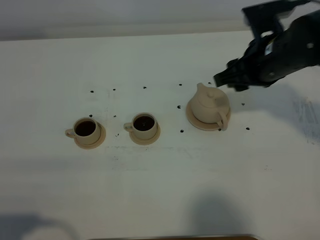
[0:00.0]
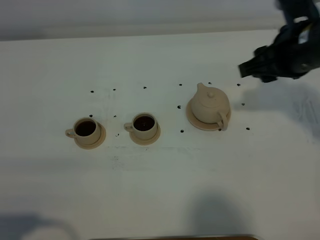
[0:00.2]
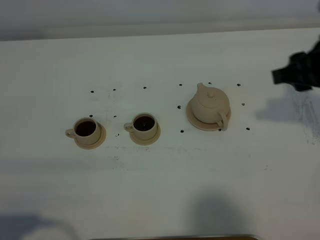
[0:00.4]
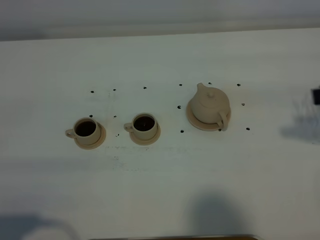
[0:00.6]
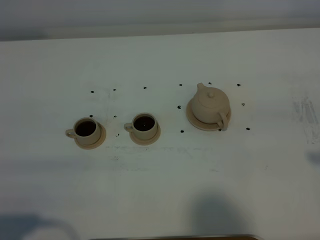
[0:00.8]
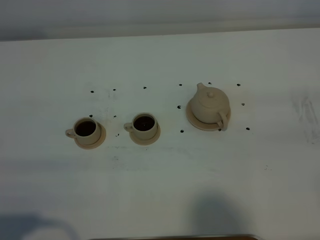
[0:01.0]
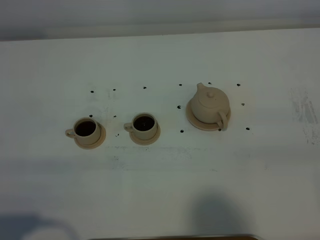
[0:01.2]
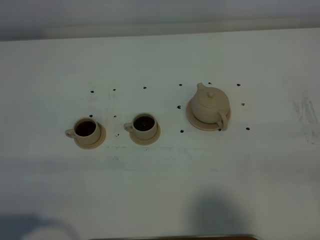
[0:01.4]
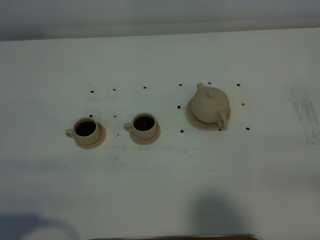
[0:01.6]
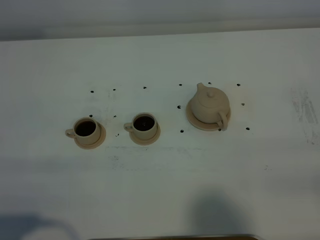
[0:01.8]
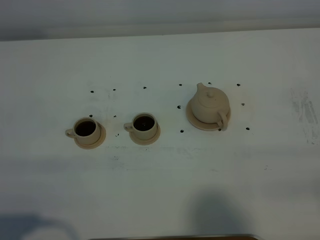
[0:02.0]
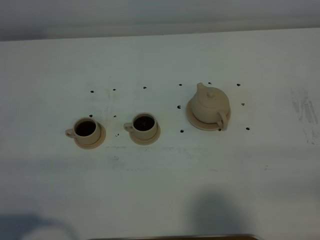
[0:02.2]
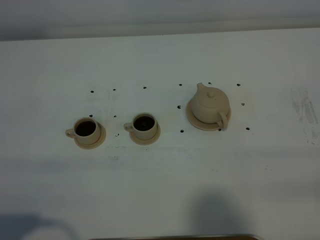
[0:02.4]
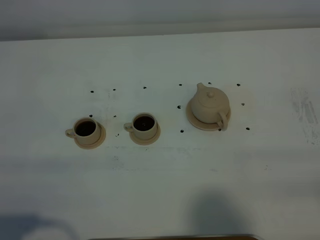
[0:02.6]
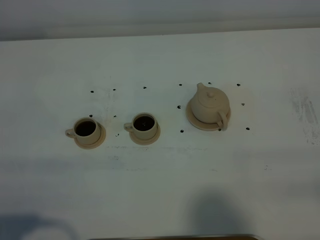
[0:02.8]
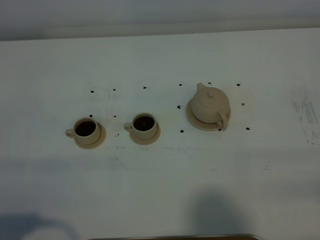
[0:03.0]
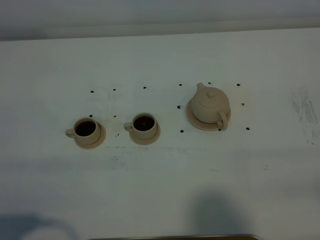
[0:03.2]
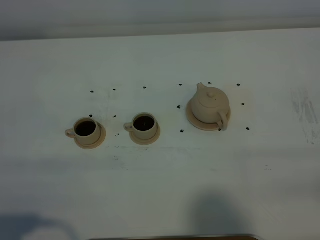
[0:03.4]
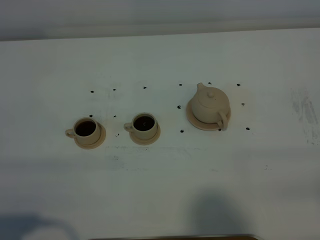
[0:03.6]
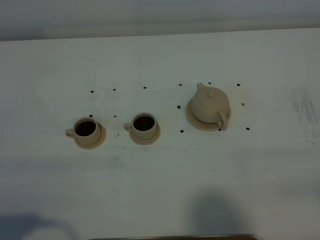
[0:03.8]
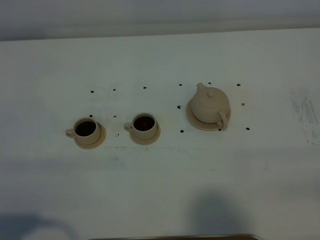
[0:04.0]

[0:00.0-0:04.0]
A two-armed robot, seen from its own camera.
Task of the whole recording: grasp the brown teapot and pour the tea into the two brown teacups one by one, put the brown teapot back in its original place.
0:00.0 to 0:01.4: The right gripper goes roughly 30 cm backward and to the right.
0:02.6 to 0:04.0: Neither gripper changes place.

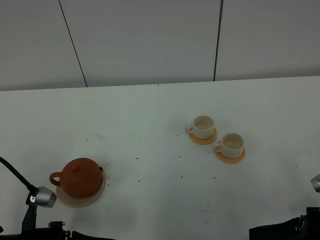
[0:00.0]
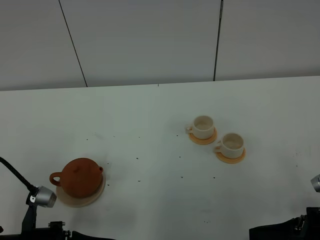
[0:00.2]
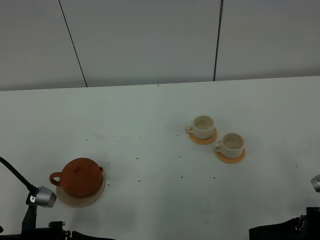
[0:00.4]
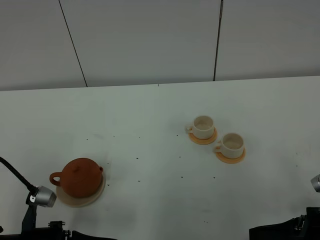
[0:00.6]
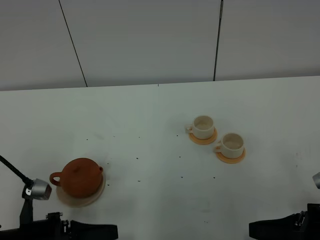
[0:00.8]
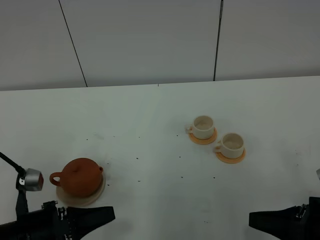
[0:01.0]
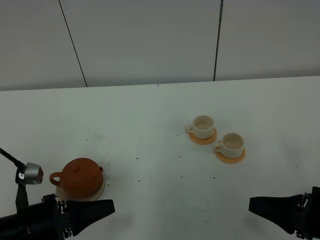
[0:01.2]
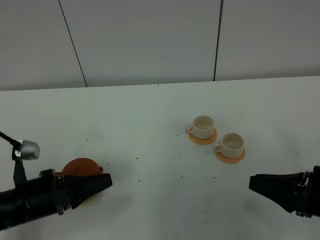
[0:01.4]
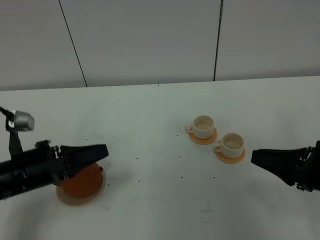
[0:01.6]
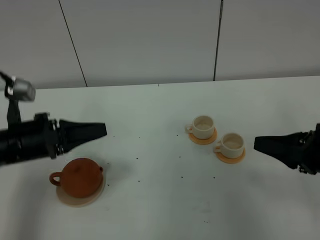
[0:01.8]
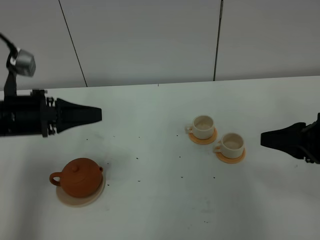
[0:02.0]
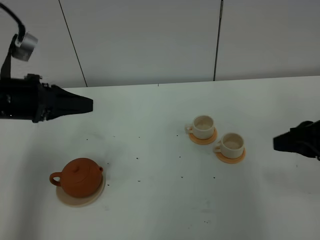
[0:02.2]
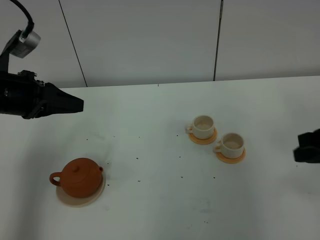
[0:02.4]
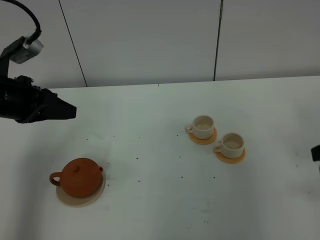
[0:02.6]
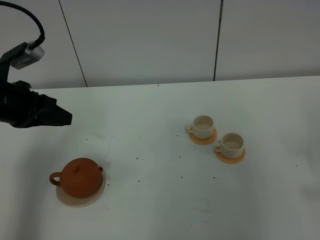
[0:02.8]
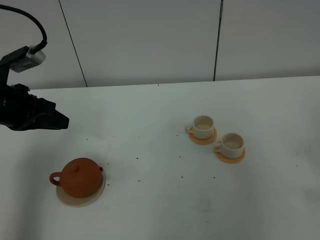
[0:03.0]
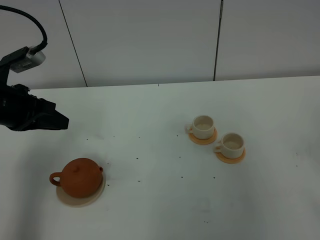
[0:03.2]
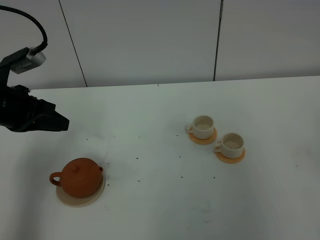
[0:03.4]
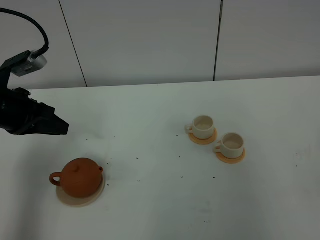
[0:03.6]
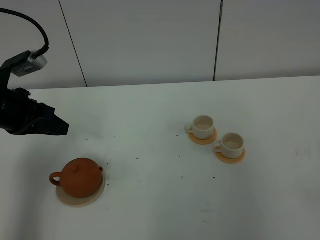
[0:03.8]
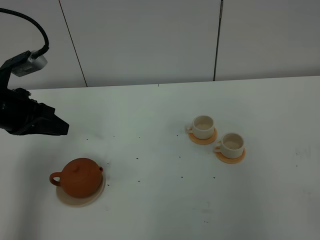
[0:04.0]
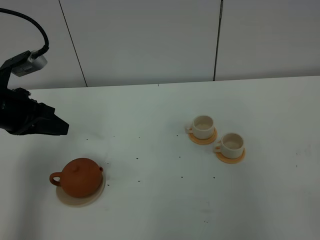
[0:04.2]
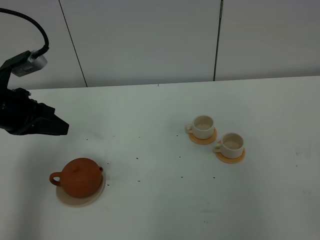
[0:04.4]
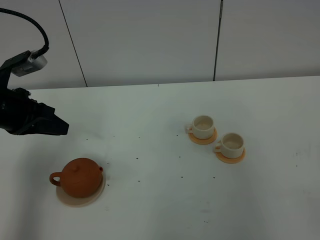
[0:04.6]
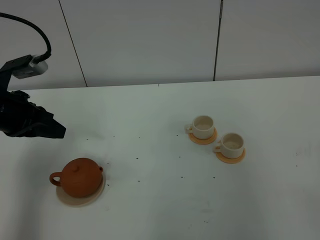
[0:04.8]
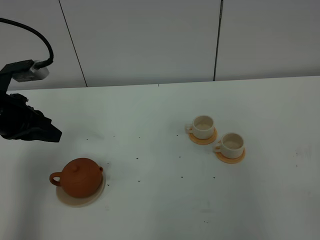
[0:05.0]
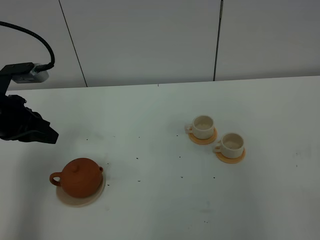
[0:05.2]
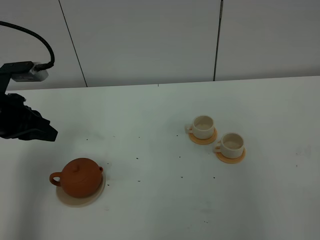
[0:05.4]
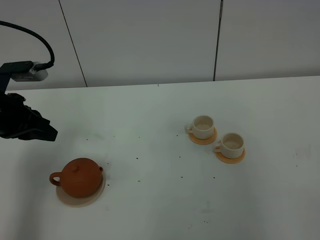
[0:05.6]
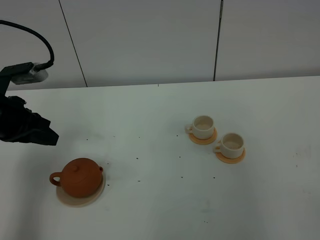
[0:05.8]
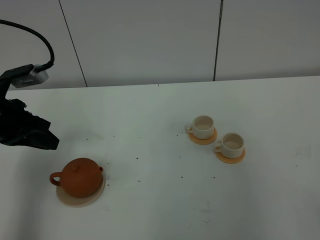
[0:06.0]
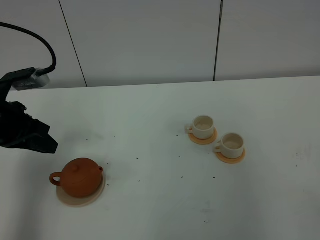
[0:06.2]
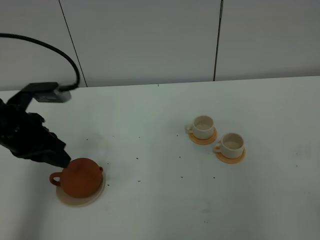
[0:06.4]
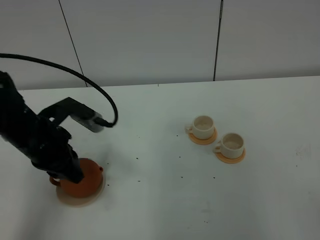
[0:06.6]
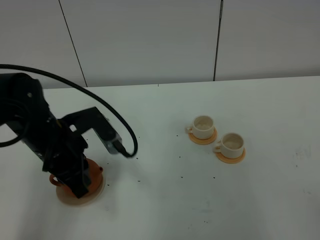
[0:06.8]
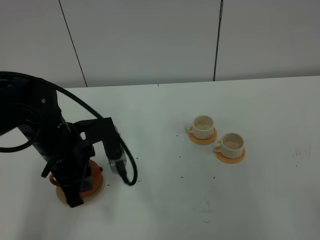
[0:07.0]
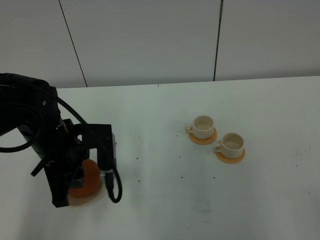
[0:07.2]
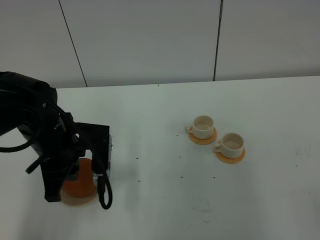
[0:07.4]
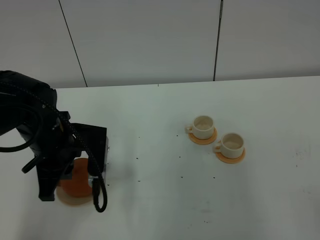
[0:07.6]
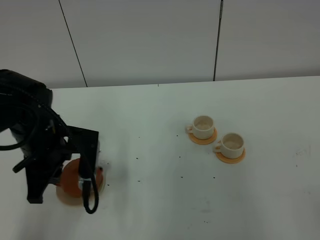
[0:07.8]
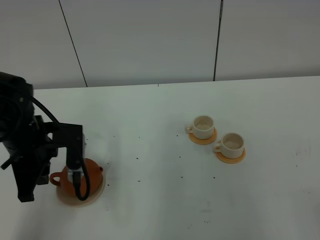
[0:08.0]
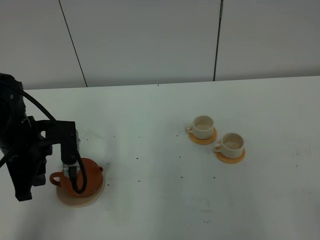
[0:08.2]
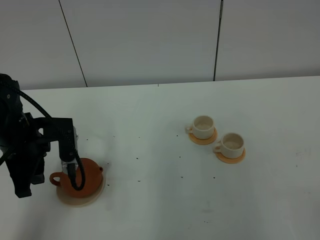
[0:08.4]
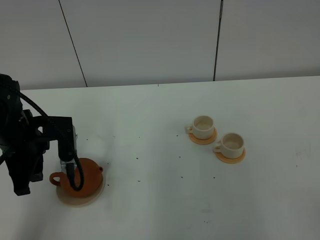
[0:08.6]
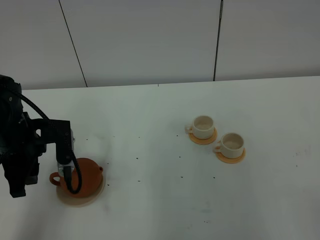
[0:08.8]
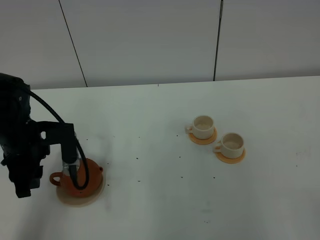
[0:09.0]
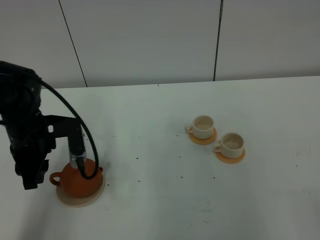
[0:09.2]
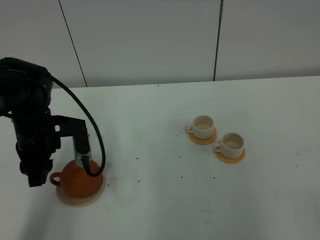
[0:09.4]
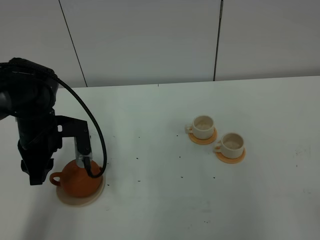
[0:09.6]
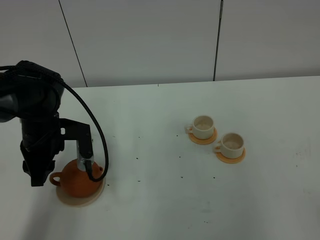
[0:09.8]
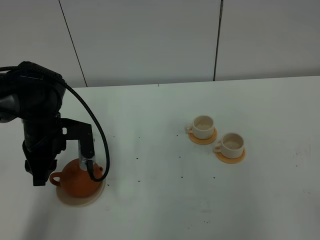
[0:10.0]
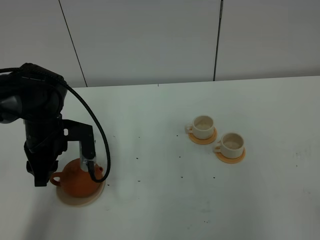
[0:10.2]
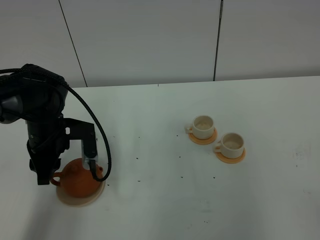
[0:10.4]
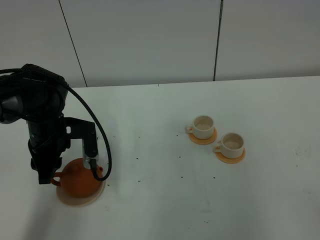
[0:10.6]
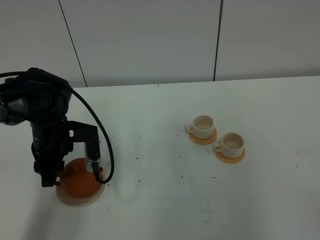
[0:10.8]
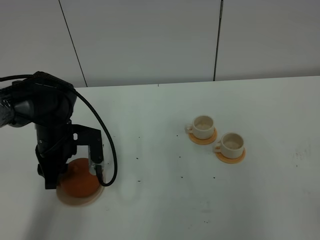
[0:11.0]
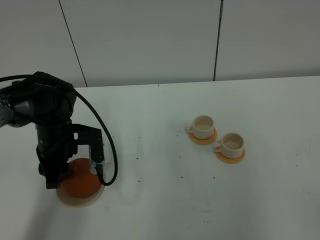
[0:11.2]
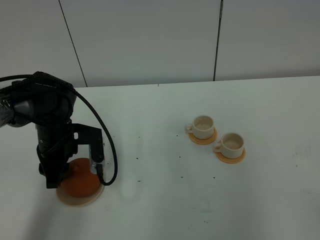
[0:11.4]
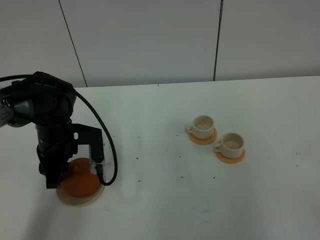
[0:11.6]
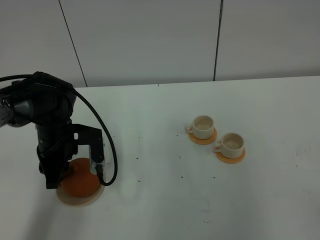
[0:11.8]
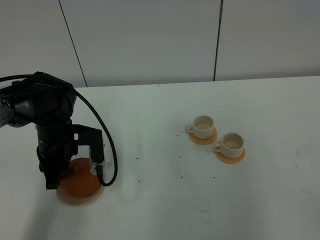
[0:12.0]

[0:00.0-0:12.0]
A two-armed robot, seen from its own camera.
Task of the whole recording: grasp the brown teapot and pour the tea into the two white teacups one by one, put the brown teapot back in its original place.
0:00.0 to 0:01.6: Both grippers travel together forward and upward, some 10 cm.
0:01.6 to 0:03.0: The left gripper heads forward, upward and to the left, covering some 15 cm; the right gripper goes about 10 cm upward and to the right.
0:04.4 to 0:06.0: The grippers stay close to where they were, moving slightly.
0:06.0 to 0:07.6: The left gripper is displaced to the right by approximately 10 cm.
0:07.6 to 0:09.0: The left gripper is displaced to the left by some 5 cm, and opens its fingers.
0:09.0 to 0:10.4: The left gripper ends up some 5 cm from where it was.
0:10.4 to 0:12.0: The left gripper closes its fingers.

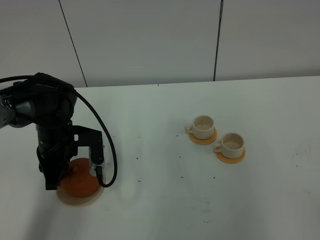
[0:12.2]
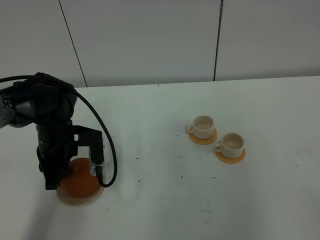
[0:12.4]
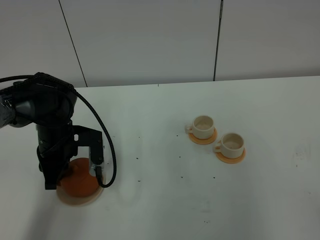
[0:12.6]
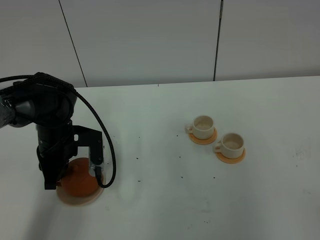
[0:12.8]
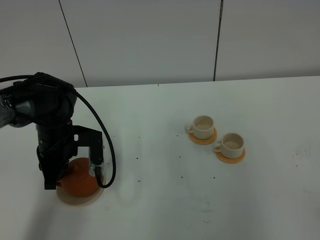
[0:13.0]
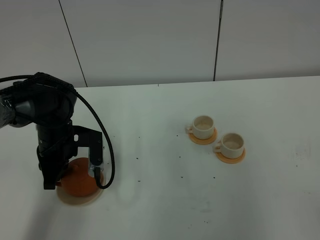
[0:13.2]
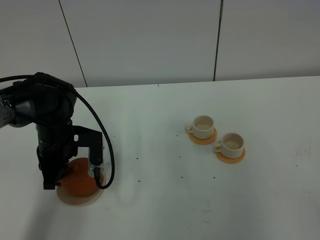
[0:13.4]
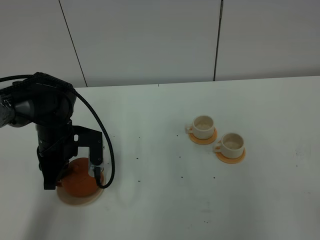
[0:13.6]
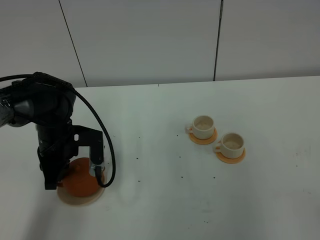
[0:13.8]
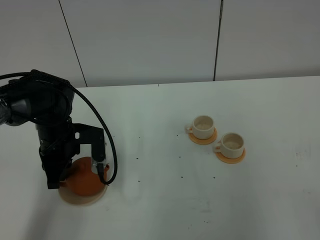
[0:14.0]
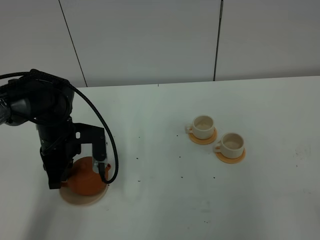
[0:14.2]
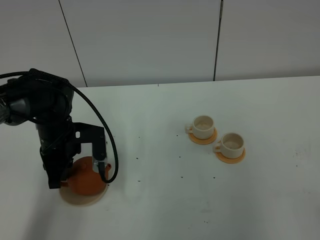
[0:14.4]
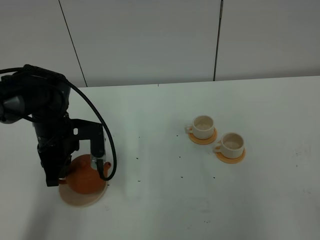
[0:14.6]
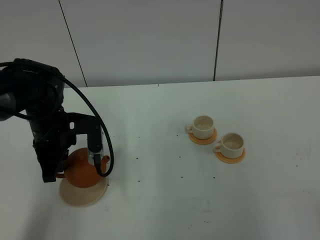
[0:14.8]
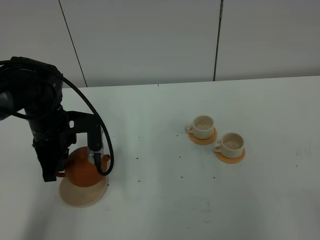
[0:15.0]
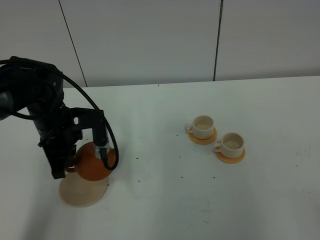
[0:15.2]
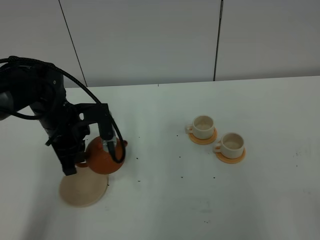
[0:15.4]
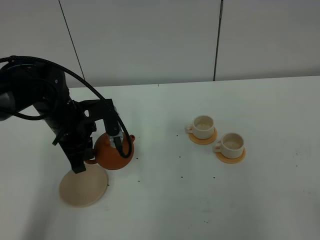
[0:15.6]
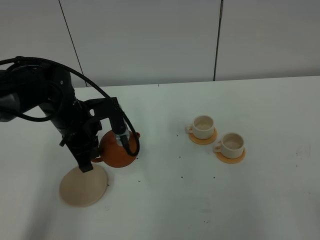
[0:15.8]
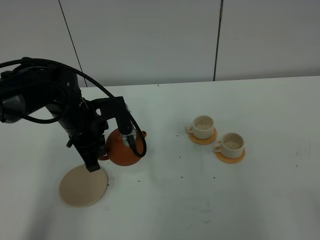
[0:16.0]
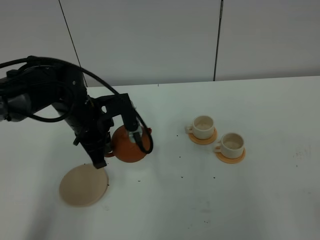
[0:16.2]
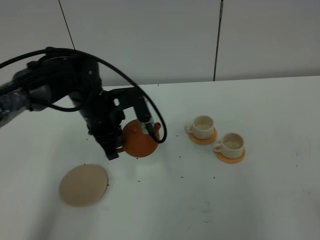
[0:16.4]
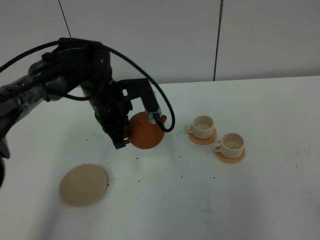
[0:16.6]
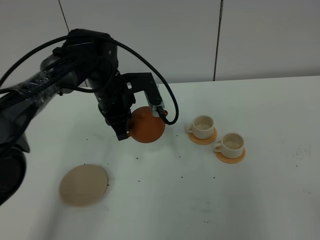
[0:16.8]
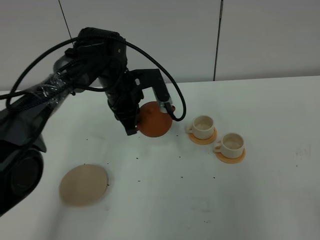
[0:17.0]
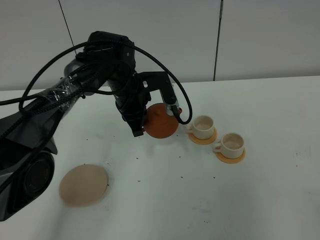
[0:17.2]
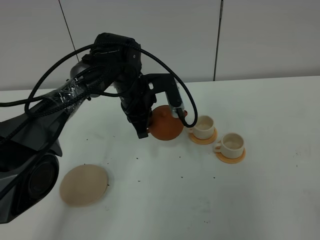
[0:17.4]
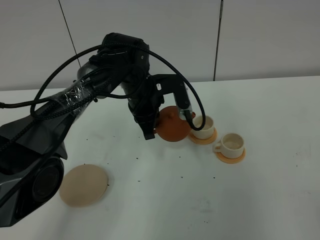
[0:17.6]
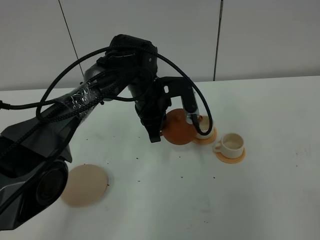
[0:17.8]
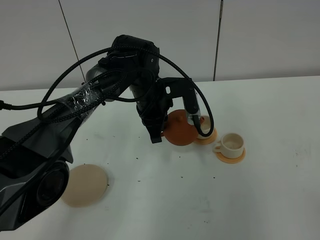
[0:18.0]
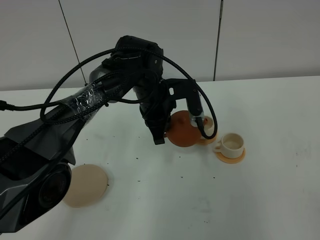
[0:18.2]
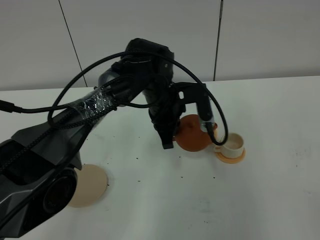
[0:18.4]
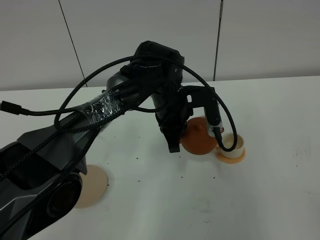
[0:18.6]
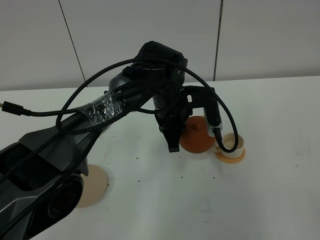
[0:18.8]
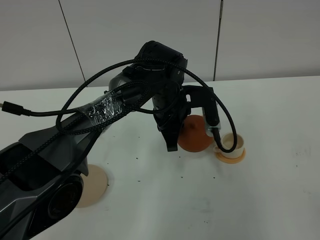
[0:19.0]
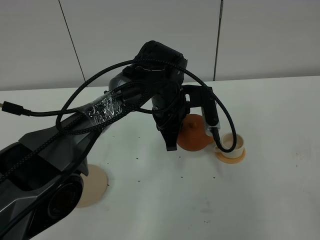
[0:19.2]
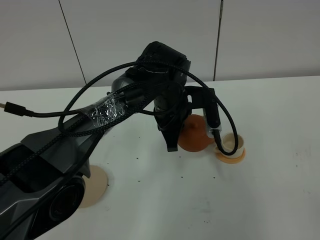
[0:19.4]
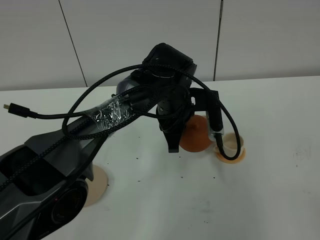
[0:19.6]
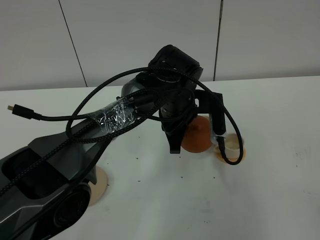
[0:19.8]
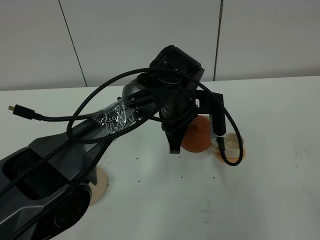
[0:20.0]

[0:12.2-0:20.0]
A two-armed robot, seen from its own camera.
Task of the whole recording: grasp the brown teapot and pour the tea into the two white teacups one by one, put the brown teapot back in its original place.
Step, 0:12.2 to 0:15.4: Pick up the teapot with the left gripper.
0:12.2 to 0:13.8: Neither gripper changes place.
0:13.8 to 0:15.4: The grippers stay close to where they were, moving slightly.
0:15.4 to 0:16.8: The left gripper goes some 10 cm to the right and forward.
0:16.8 to 0:18.4: The left gripper moves to the right, some 10 cm.
0:18.4 to 0:20.0: The grippers stay close to where they were, moving slightly.
